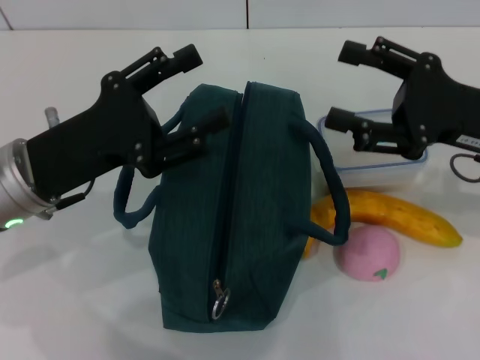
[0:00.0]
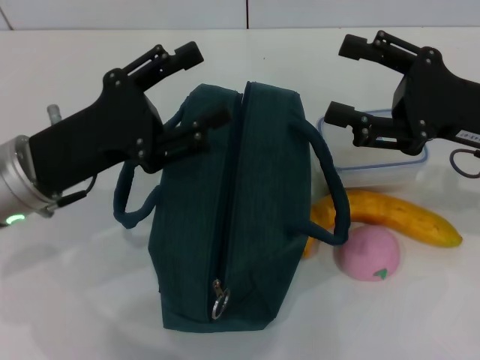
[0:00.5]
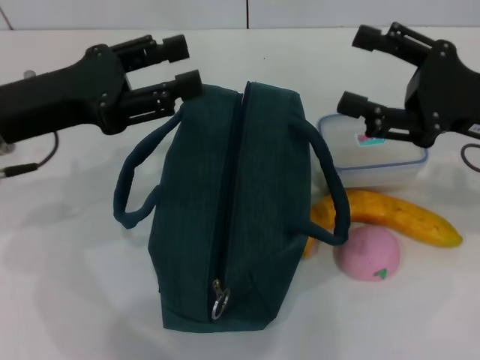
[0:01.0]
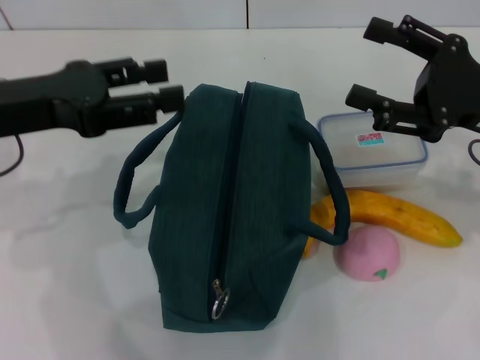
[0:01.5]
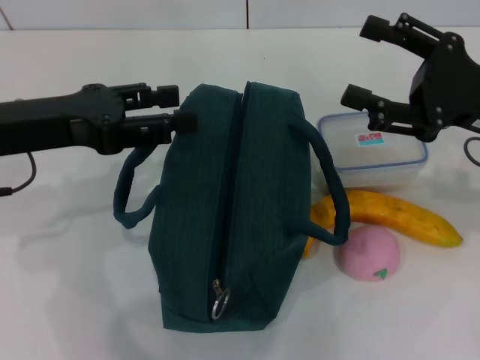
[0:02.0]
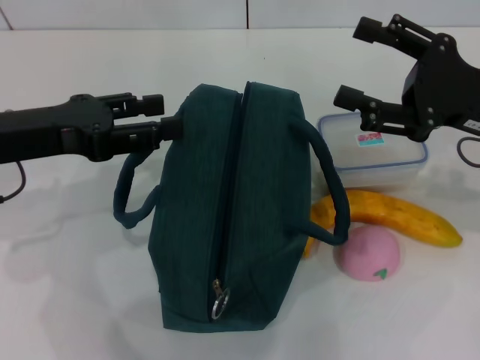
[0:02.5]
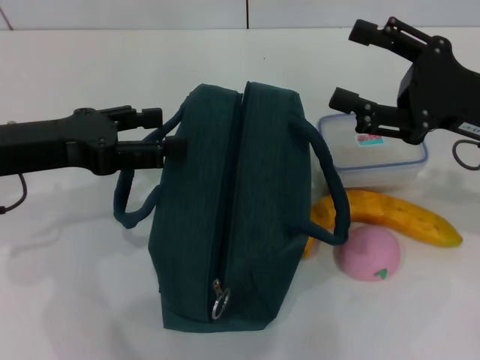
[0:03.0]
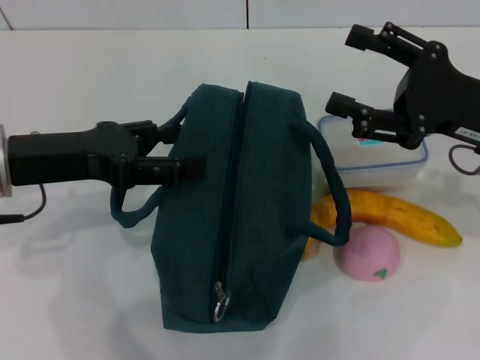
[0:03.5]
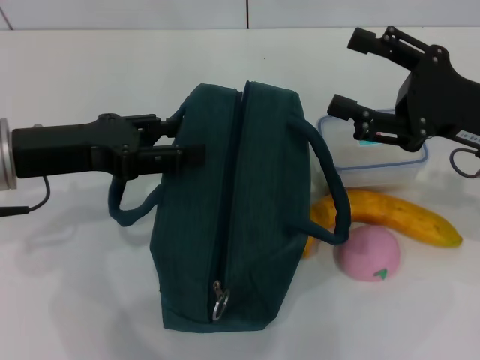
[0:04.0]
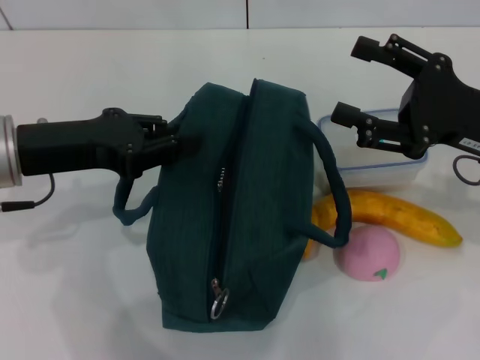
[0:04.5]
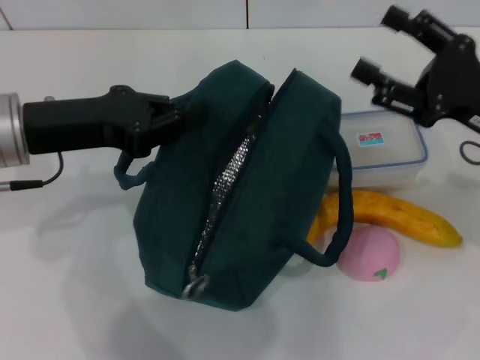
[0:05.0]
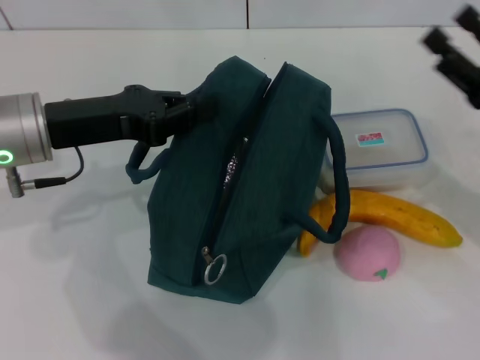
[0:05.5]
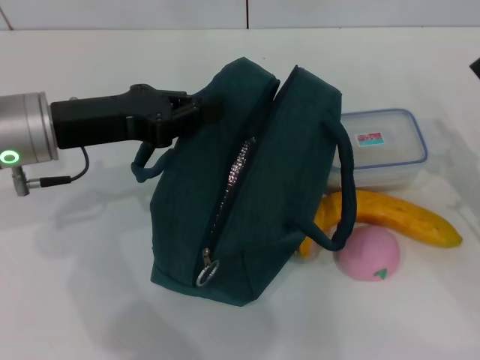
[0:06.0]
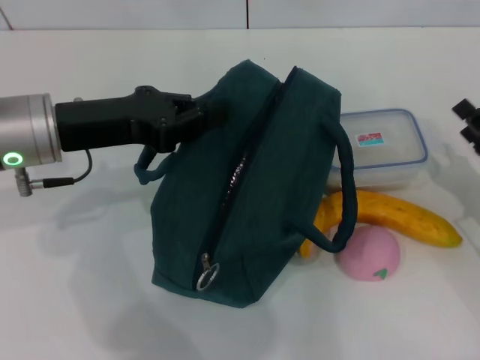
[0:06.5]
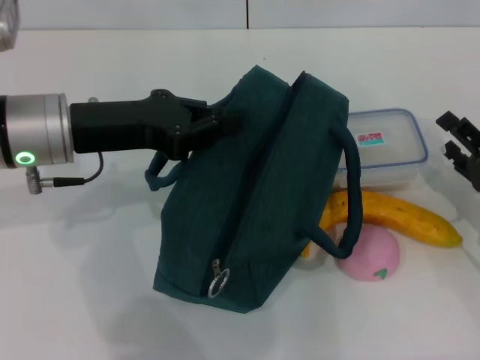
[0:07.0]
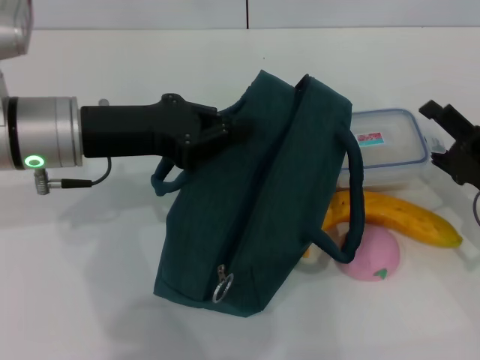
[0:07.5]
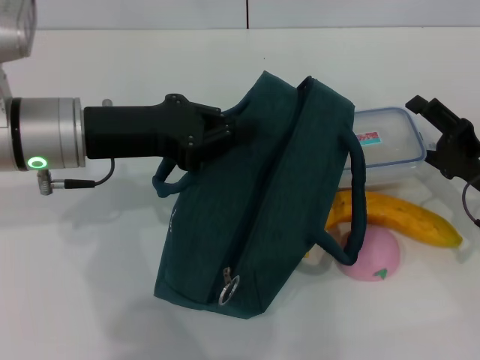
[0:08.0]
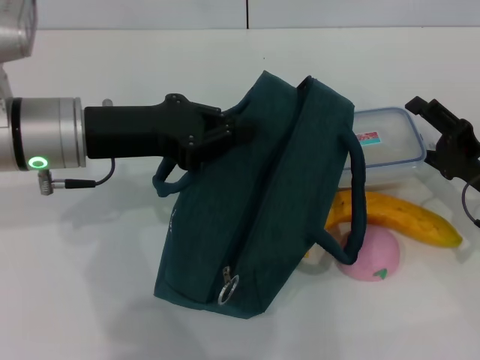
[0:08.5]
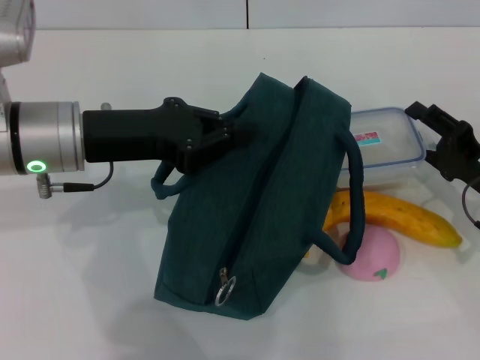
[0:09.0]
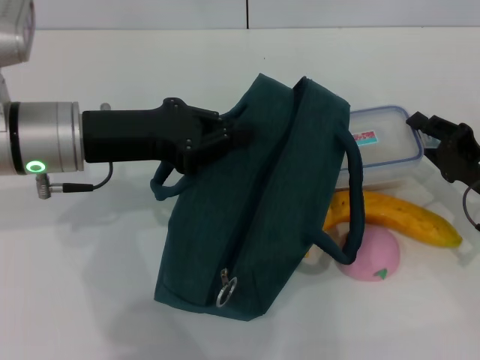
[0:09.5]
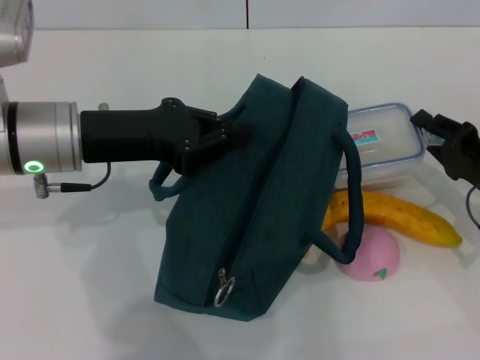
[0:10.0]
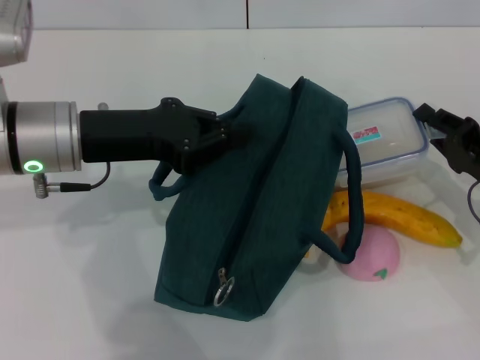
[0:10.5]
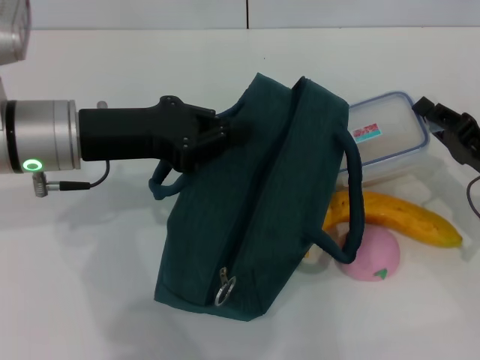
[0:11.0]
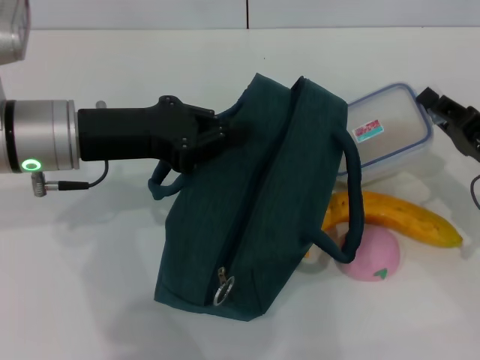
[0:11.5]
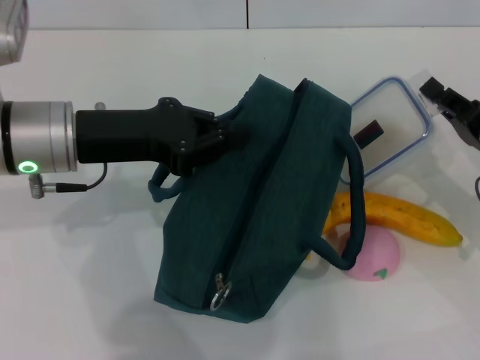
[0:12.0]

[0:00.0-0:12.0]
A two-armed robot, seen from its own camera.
Step, 0:00.0 to 0:04.5: Hold the lunch bag with your left hand.
Step, 0:05.0 to 0:10.0: Pick up the lunch box with your right hand.
0:00.0 to 0:02.0: The left gripper moves upward, about 5 cm.
0:02.0 to 0:04.0: There are only small adjustments of the grippers.
0:04.0 to 0:06.0: The left gripper closes up, while the right gripper shifts some 10 cm downward and to the right.
0:08.0 to 0:10.0: The right gripper closes up.

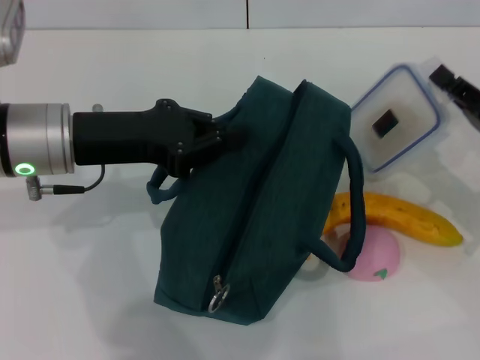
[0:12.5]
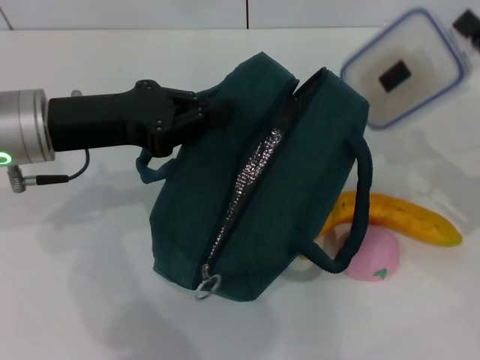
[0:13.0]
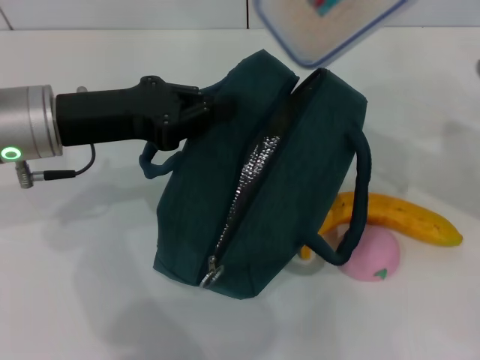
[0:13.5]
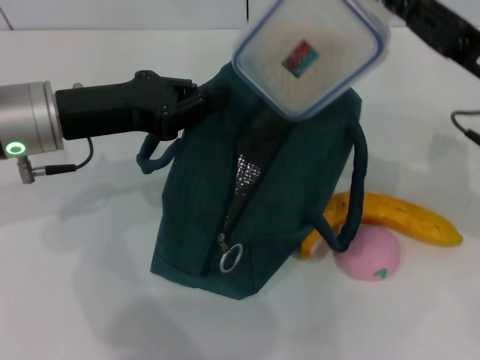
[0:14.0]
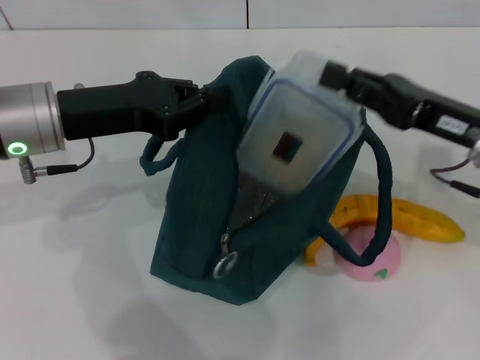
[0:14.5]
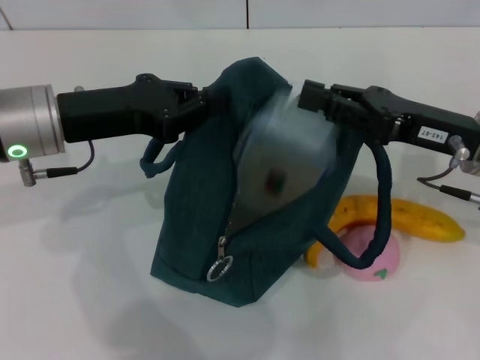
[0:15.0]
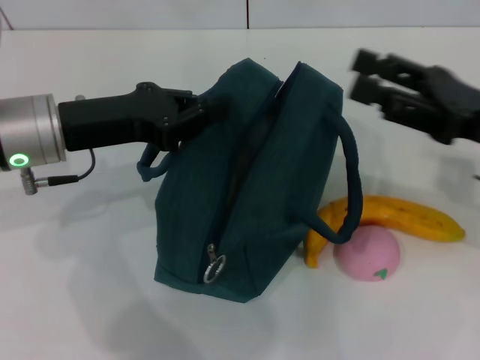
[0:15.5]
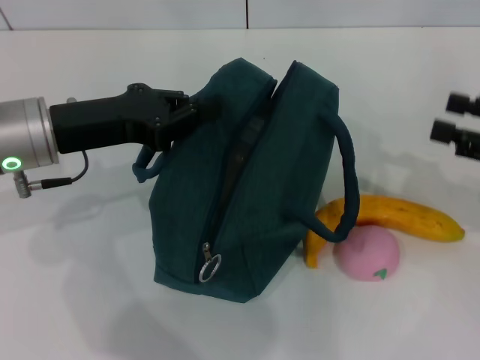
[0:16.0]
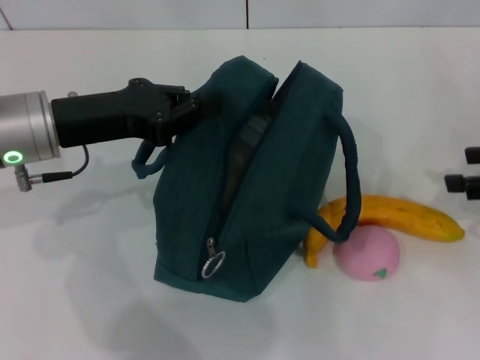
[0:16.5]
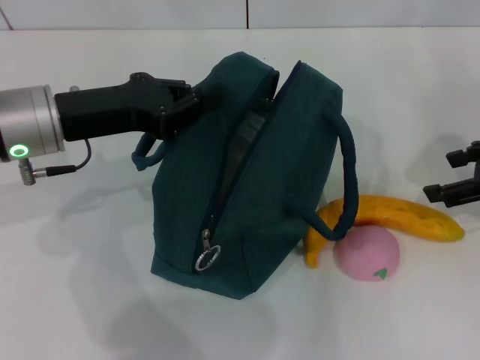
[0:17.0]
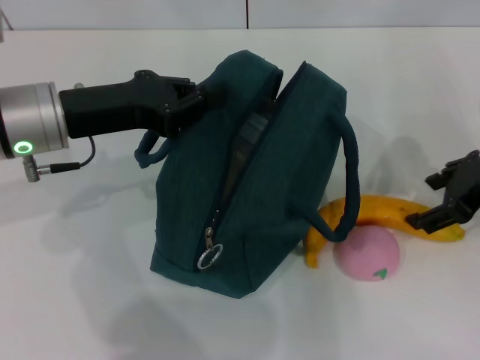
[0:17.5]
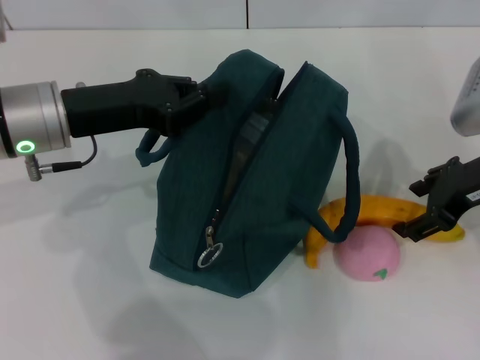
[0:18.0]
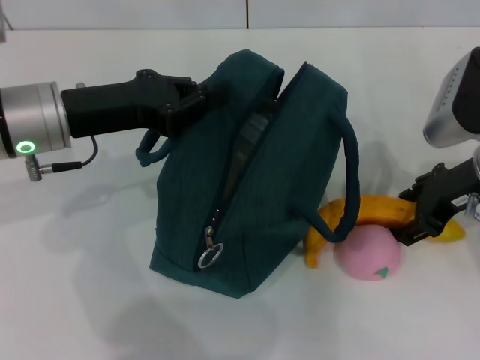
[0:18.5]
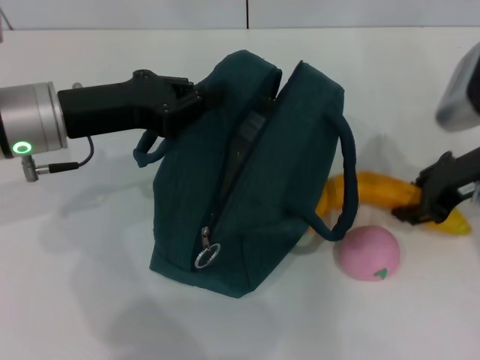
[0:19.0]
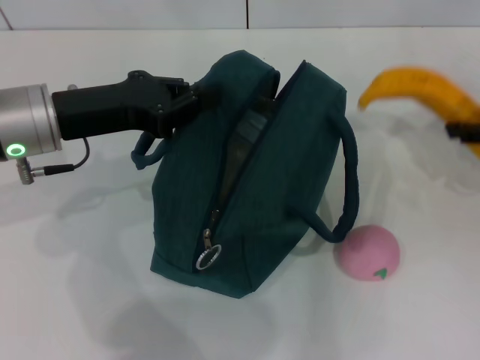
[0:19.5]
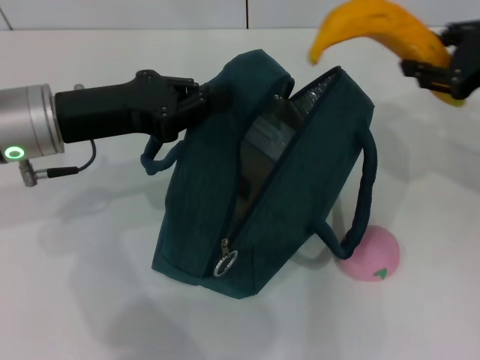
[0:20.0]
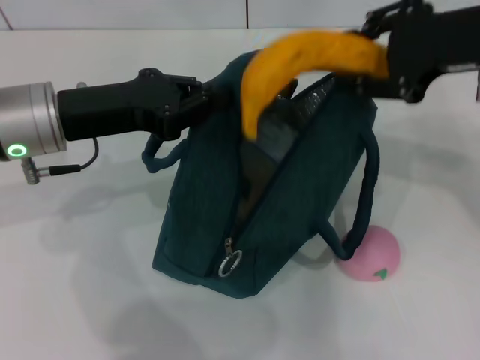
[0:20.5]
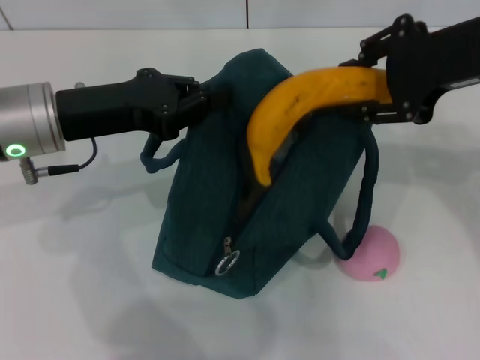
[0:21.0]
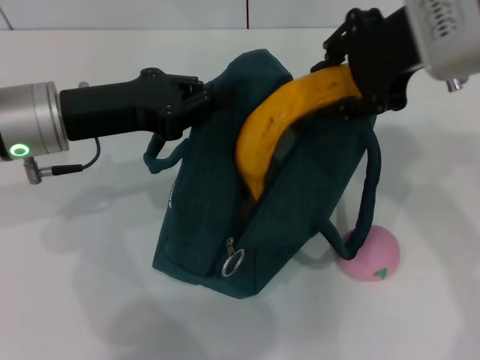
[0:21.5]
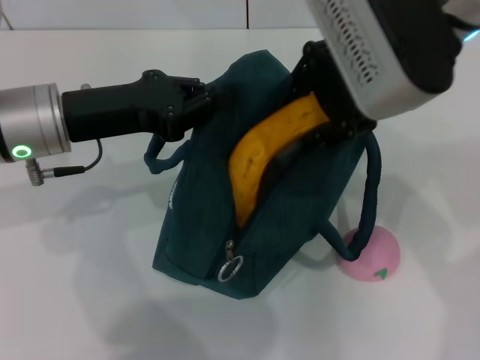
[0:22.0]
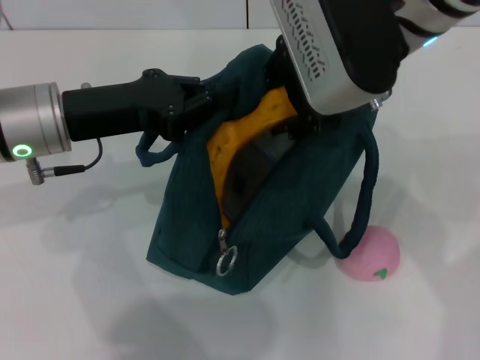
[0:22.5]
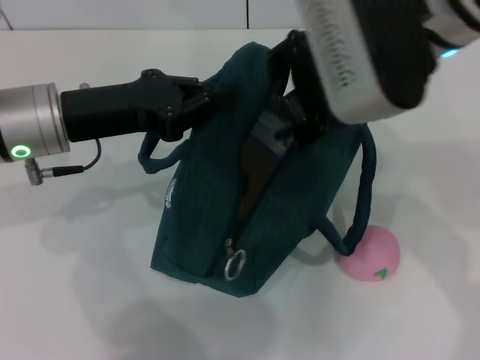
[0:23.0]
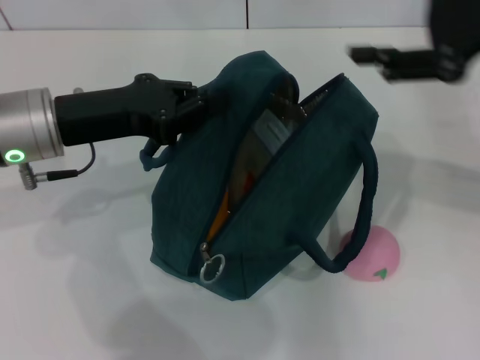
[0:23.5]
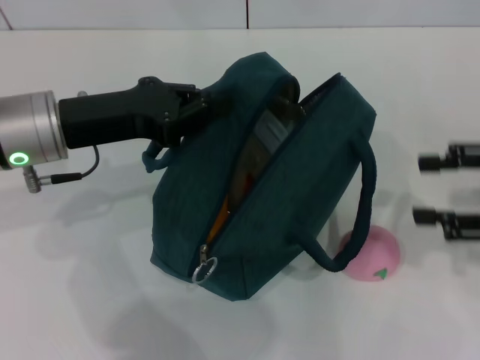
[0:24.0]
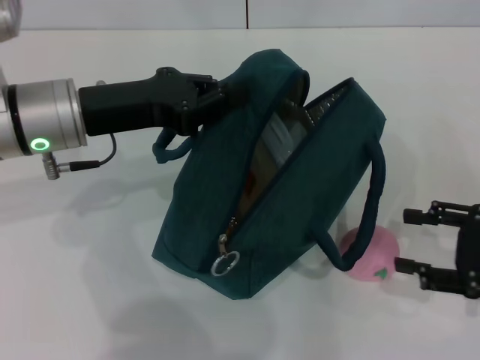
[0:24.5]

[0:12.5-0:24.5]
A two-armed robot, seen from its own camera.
Step, 0:12.5 to 0:15.0: Place the lunch box into the lunch bag with your right hand.
Step, 0:15.5 to 0:18.5: Take the banana with your right hand.
Step, 0:19.0 to 0:23.0: Put the banana into the lunch bag with your right hand.
0:12.5 to 0:14.5: The right gripper shifts roughly 10 cm to the left and upward.
0:14.5 to 0:16.5: The right gripper heads to the right, covering roughly 10 cm, and opens.
0:16.5 to 0:18.5: The right gripper goes roughly 10 cm to the left.
0:18.5 to 0:20.5: The right gripper shifts about 10 cm upward, and closes its fingers.
0:20.5 to 0:22.5: The right gripper moves to the left, approximately 15 cm.
0:22.5 to 0:24.5: The right gripper is displaced to the right and downward by roughly 30 cm.

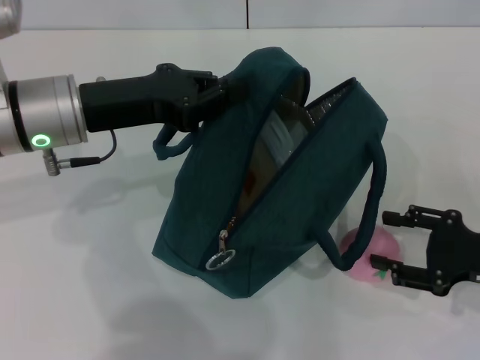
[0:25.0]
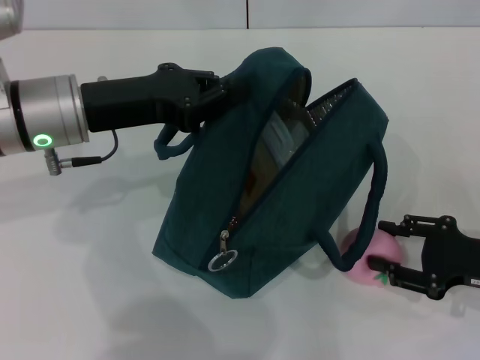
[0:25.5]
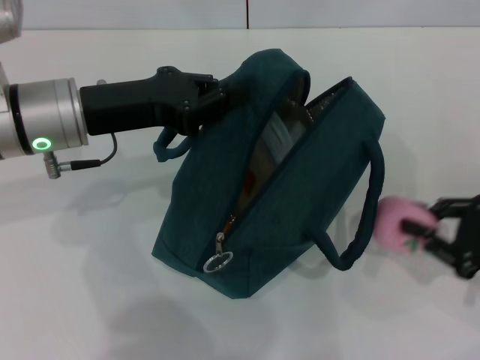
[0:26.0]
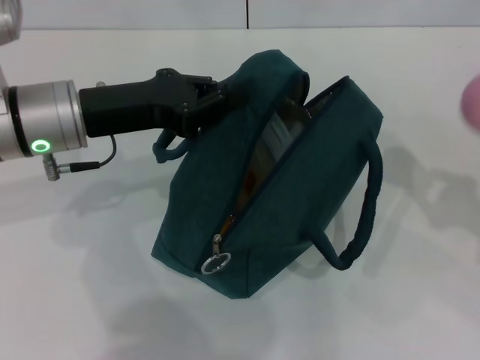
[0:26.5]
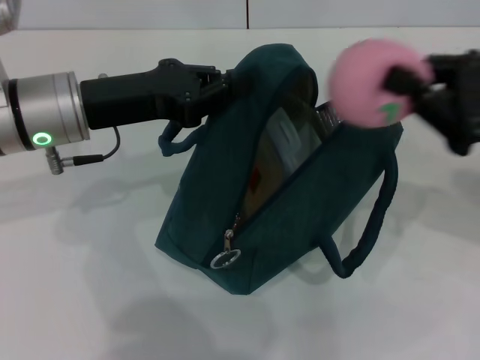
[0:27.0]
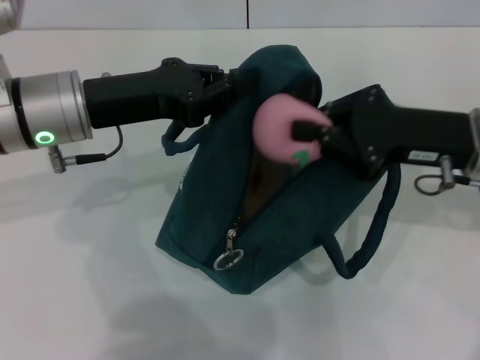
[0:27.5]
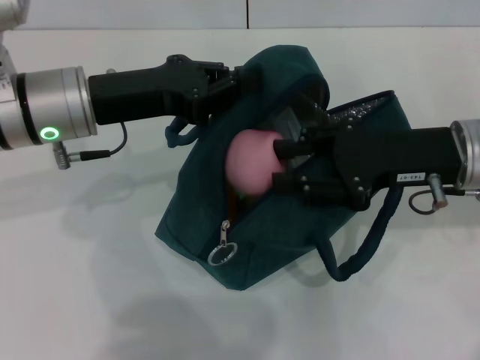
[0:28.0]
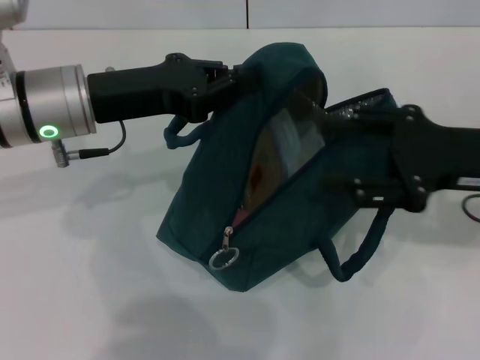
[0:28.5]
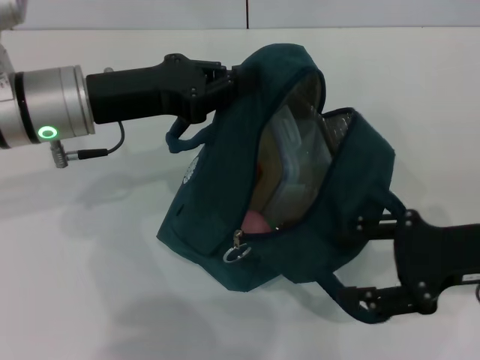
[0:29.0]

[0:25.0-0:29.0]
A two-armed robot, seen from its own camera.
0:25.0 to 0:27.0: The right gripper travels upward and forward by approximately 10 cm, and closes up.
0:27.0 to 0:29.0: The right gripper moves about 5 cm, and opens.
